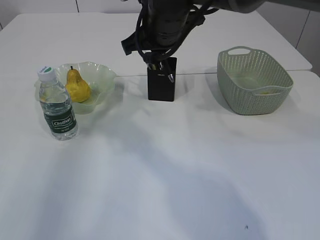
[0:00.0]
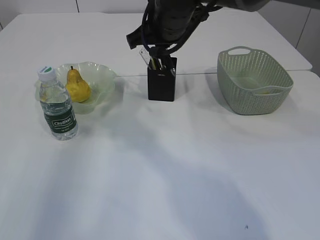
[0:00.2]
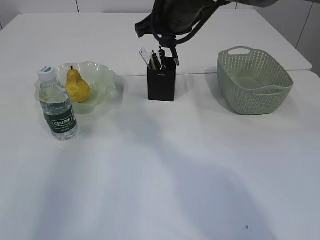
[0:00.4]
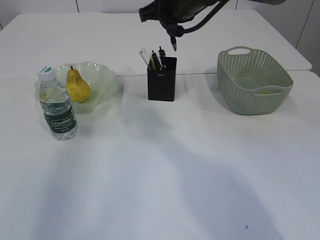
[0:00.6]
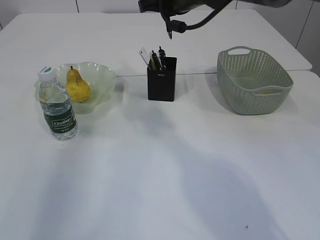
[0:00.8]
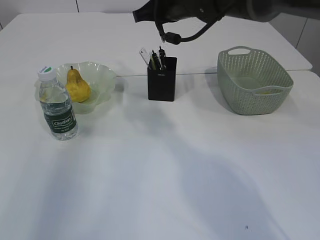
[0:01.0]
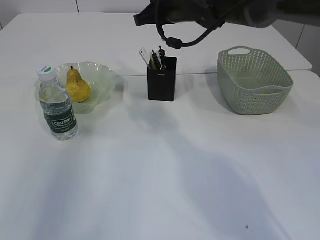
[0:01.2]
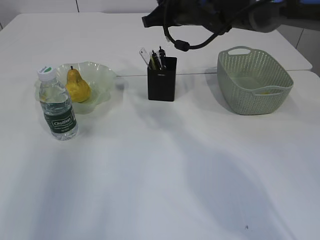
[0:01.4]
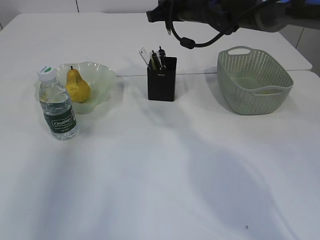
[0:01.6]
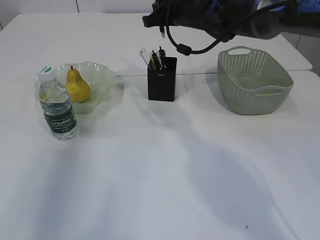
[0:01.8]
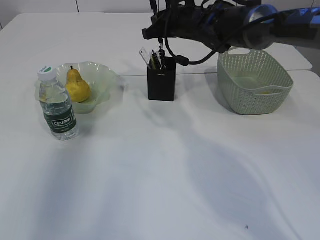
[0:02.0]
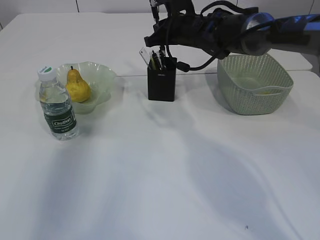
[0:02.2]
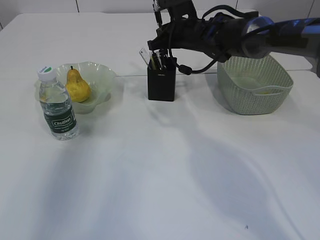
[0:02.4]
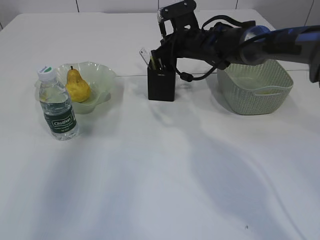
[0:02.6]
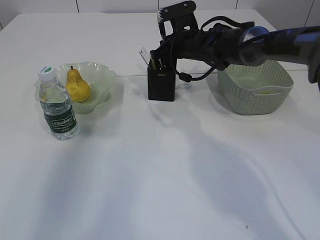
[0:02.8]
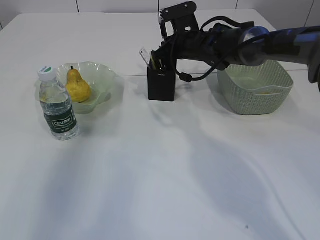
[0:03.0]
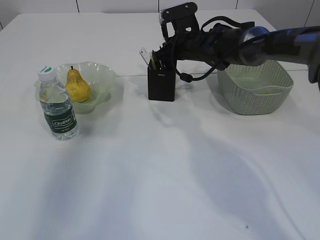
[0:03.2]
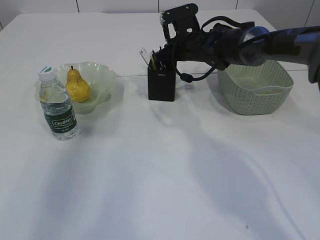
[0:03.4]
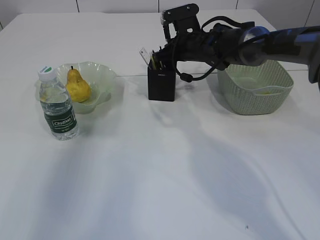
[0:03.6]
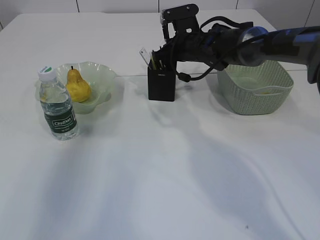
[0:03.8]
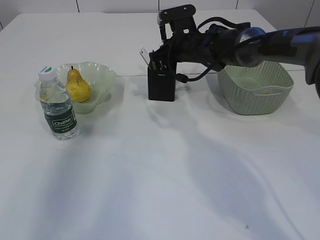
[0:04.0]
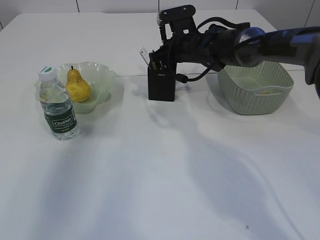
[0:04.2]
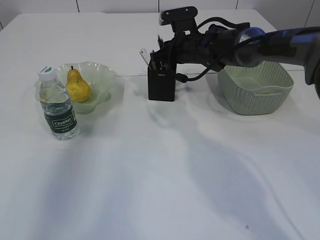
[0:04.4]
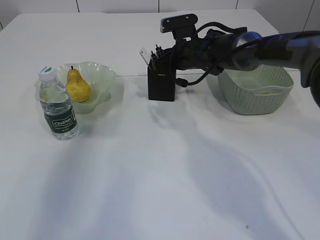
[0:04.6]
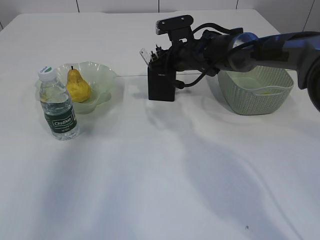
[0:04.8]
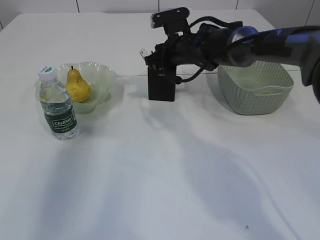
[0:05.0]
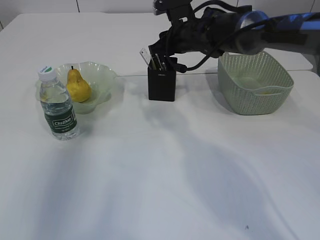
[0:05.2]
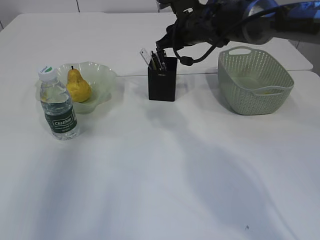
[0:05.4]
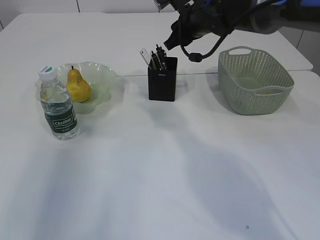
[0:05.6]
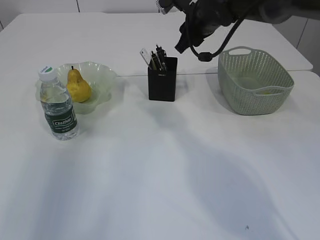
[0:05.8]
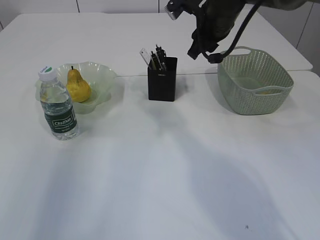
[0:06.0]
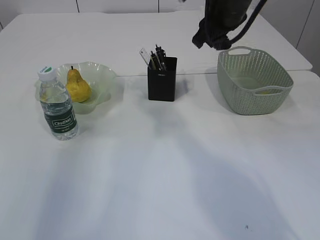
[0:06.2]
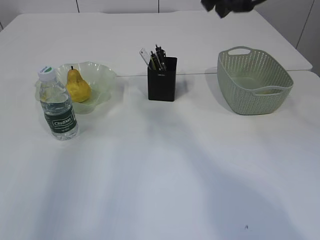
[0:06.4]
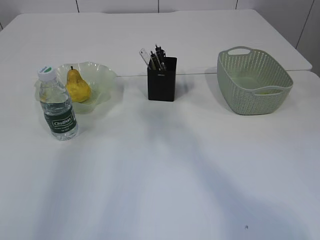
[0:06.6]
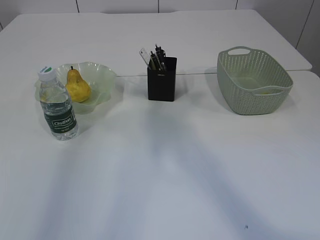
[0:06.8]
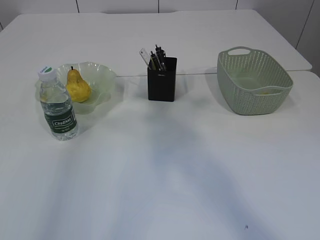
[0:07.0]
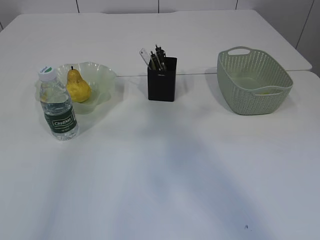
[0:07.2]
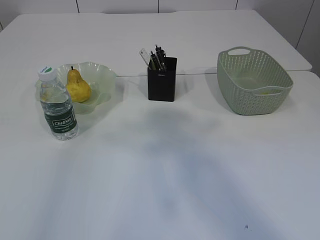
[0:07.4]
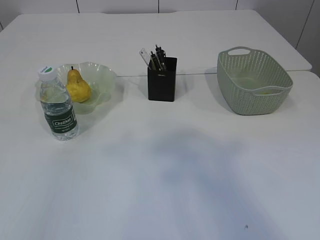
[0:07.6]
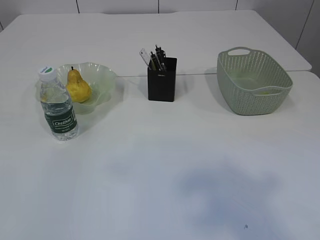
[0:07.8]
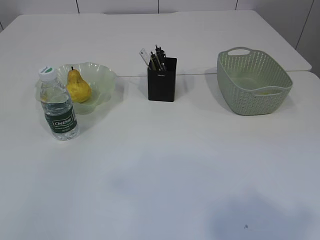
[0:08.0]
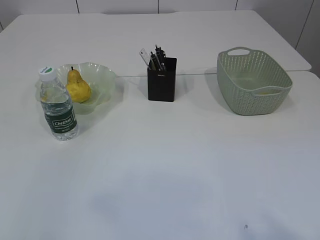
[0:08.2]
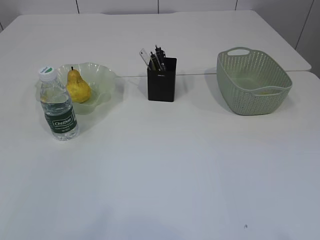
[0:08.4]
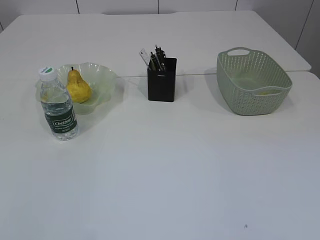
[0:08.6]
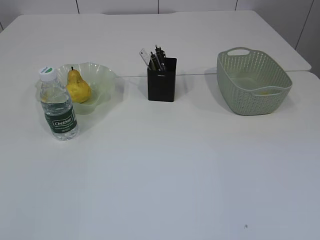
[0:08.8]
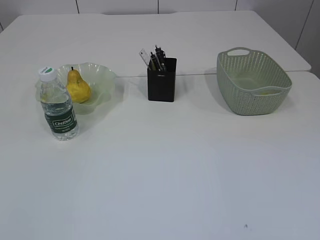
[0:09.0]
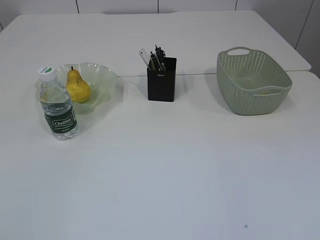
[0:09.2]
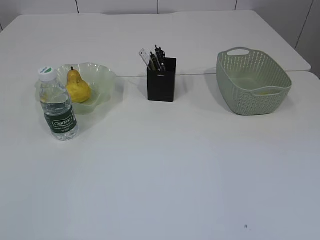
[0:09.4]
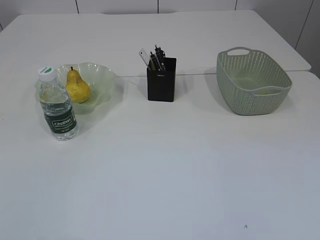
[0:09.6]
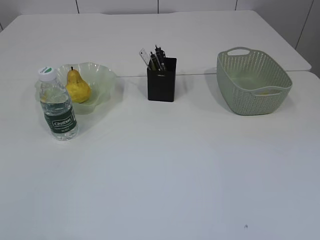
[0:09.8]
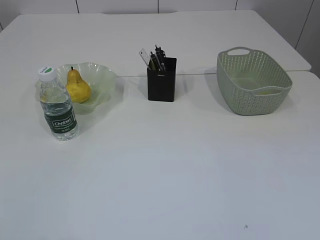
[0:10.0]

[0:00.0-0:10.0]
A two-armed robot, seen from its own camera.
Step, 0:00.0 to 0:05.8: Place the pen into the pen holder.
0:00.0 to 0:01.4: The right gripper is displaced forward and to the right by some 10 cm.
0:01.4 to 0:02.8: The right gripper shifts roughly 10 cm downward.
0:02.8 to 0:04.2: The grippers stay close to where they were, moving slightly.
0:04.2 to 0:05.8: The right gripper shifts roughly 10 cm upward, and opens.
0:05.8 to 0:07.2: The left gripper moves upward and backward, some 15 cm, and opens; the right gripper is displaced backward and upward by roughly 40 cm.
0:07.2 to 0:08.6: The left gripper shifts roughly 25 cm backward. Meanwhile the right gripper travels backward and downward by approximately 30 cm.

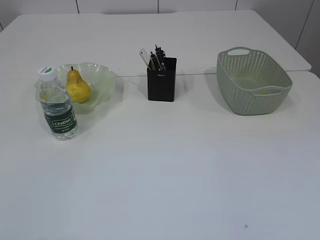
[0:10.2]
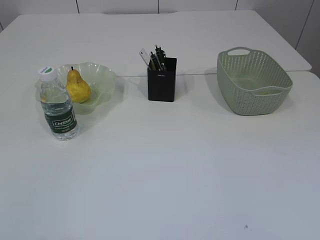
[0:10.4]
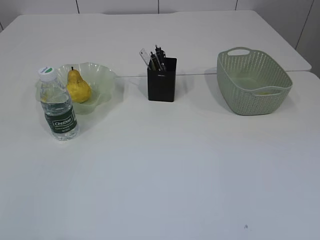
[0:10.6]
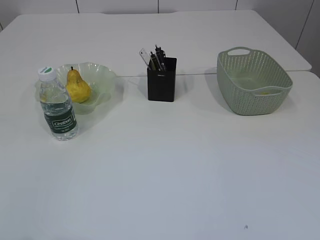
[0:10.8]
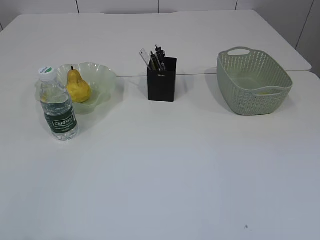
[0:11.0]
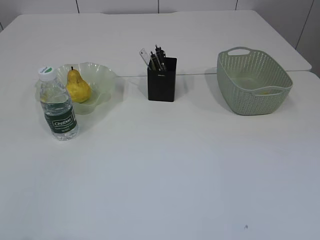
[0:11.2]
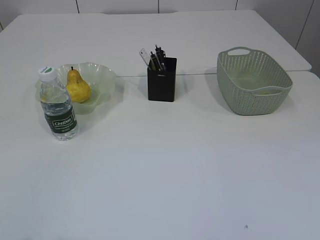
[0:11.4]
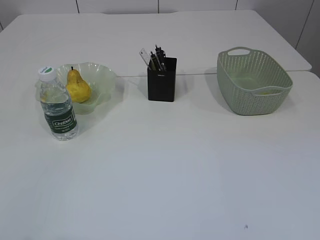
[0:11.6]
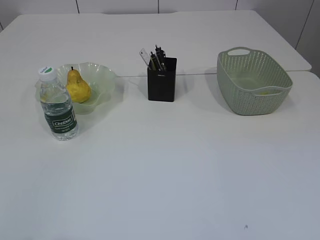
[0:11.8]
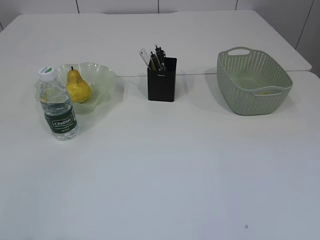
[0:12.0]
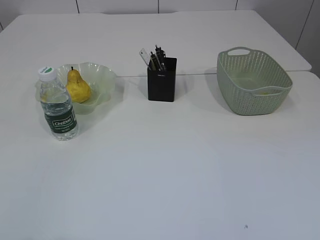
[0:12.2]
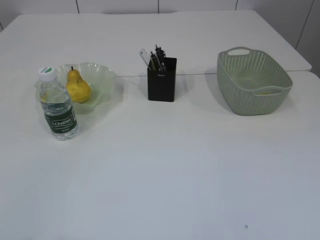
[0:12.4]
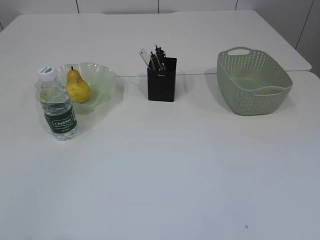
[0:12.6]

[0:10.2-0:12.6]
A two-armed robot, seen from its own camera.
0:11.4 to 0:12.6: The two grippers keep their place.

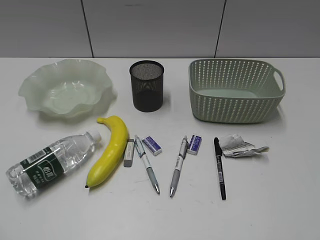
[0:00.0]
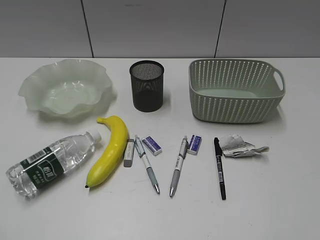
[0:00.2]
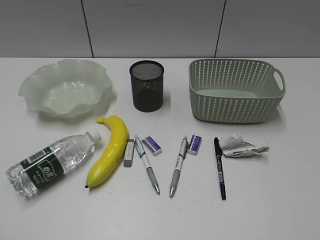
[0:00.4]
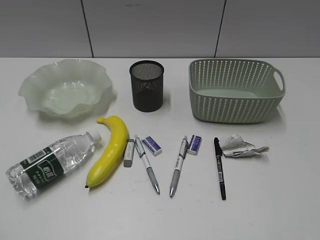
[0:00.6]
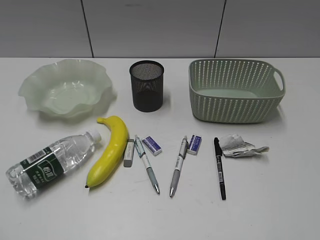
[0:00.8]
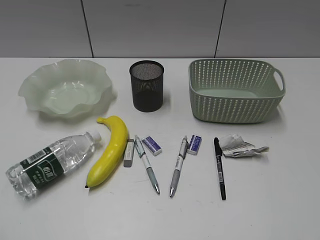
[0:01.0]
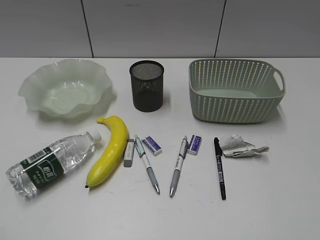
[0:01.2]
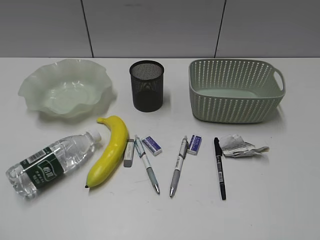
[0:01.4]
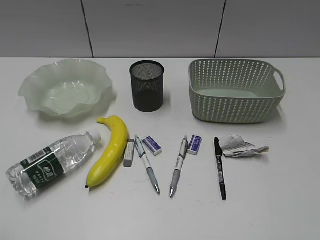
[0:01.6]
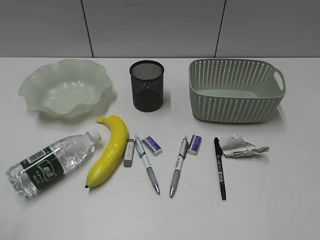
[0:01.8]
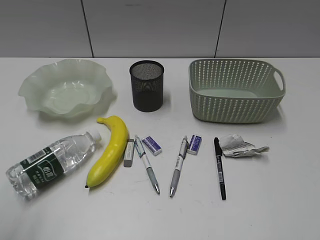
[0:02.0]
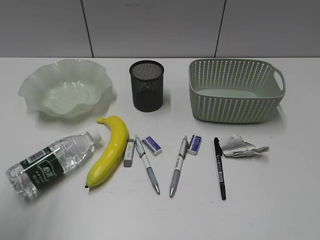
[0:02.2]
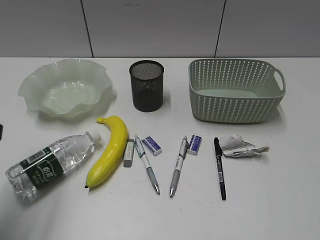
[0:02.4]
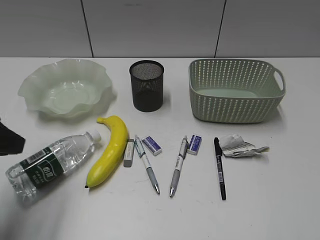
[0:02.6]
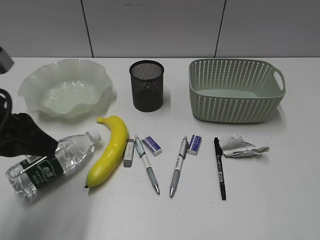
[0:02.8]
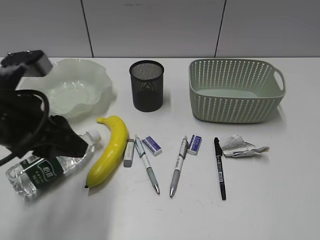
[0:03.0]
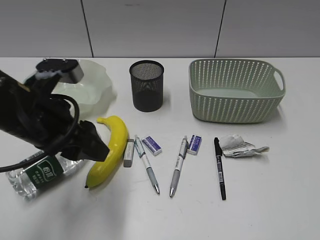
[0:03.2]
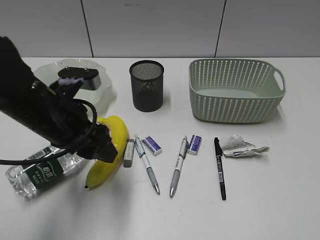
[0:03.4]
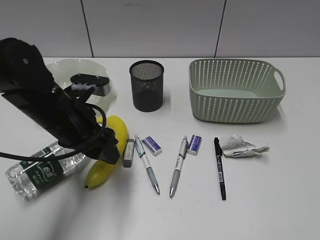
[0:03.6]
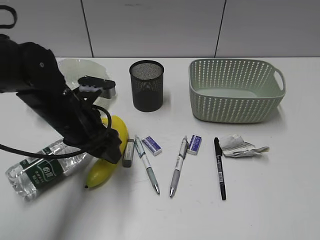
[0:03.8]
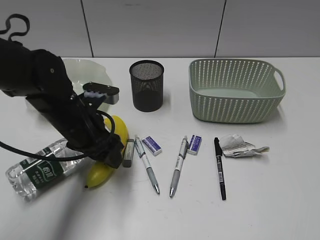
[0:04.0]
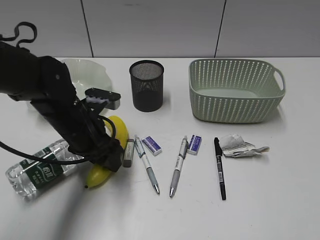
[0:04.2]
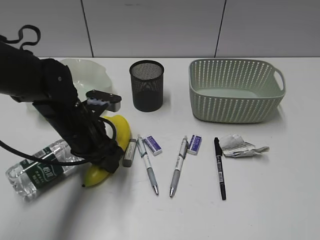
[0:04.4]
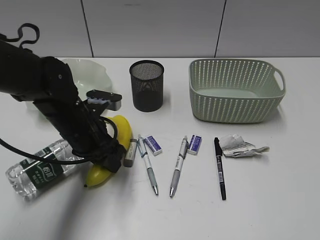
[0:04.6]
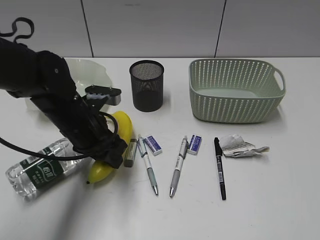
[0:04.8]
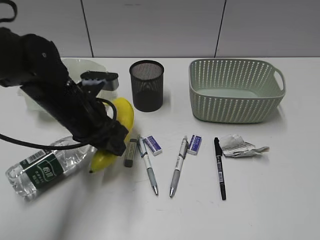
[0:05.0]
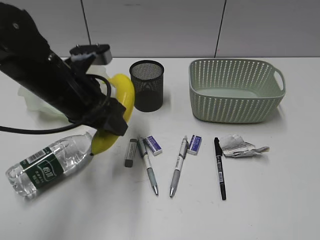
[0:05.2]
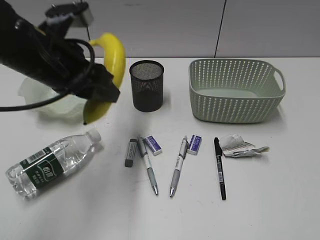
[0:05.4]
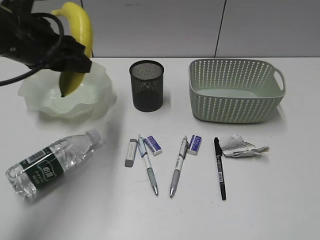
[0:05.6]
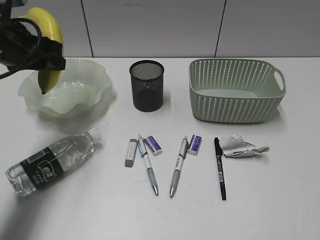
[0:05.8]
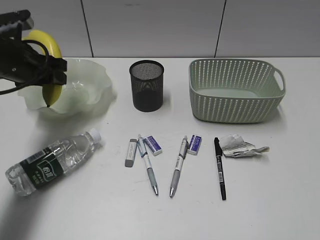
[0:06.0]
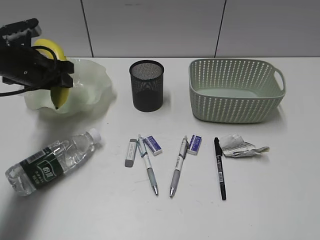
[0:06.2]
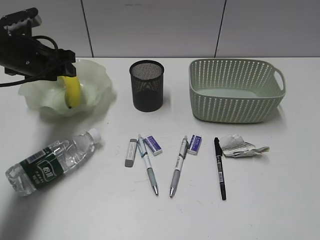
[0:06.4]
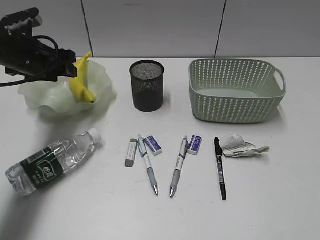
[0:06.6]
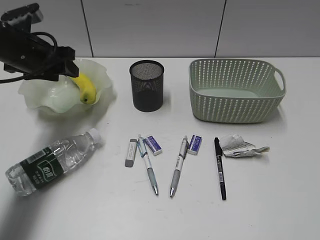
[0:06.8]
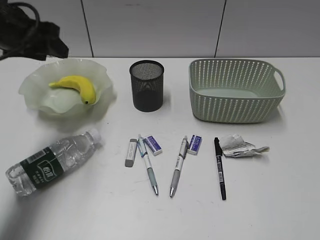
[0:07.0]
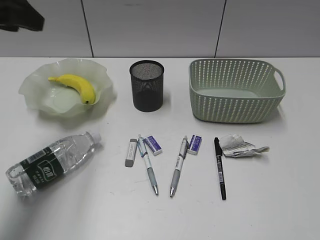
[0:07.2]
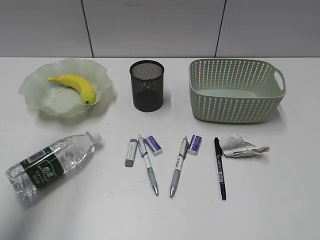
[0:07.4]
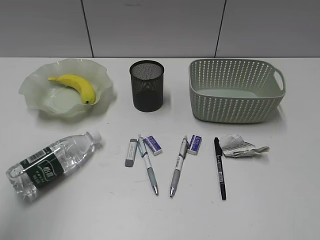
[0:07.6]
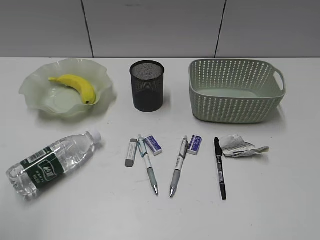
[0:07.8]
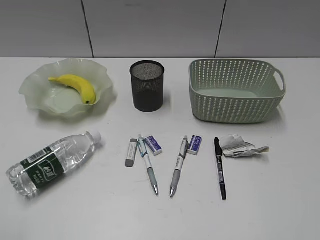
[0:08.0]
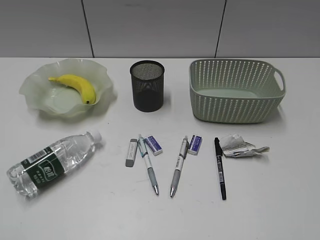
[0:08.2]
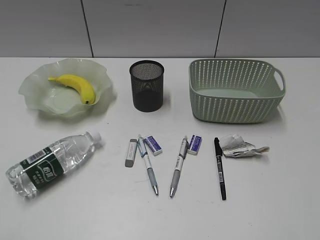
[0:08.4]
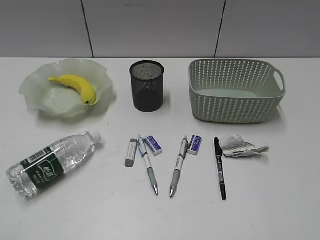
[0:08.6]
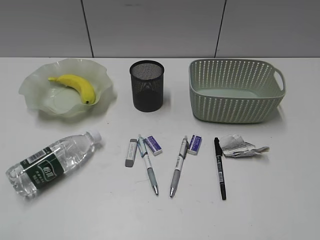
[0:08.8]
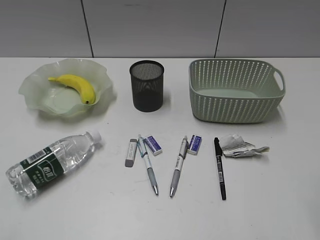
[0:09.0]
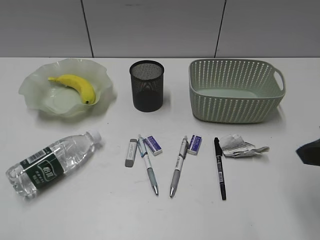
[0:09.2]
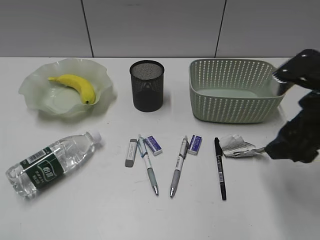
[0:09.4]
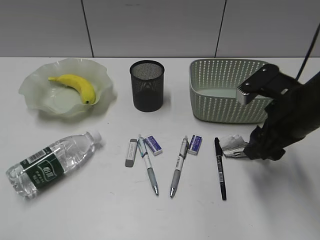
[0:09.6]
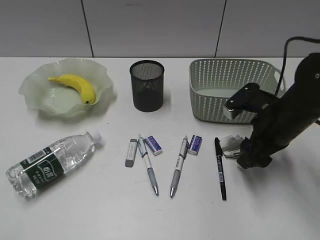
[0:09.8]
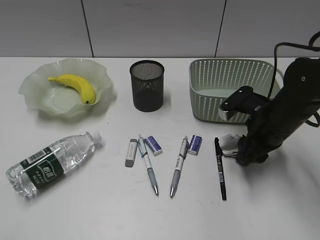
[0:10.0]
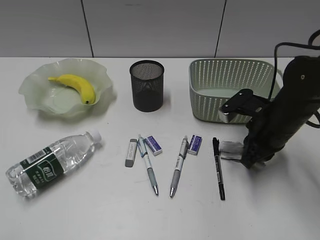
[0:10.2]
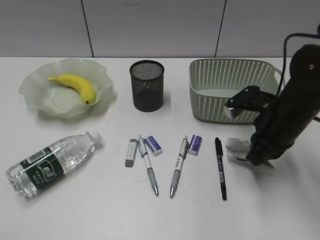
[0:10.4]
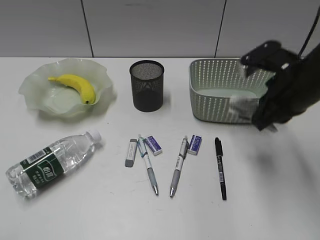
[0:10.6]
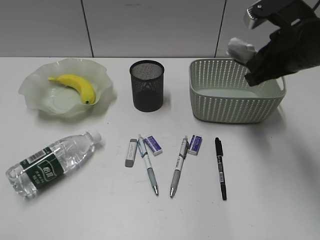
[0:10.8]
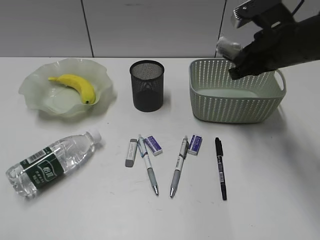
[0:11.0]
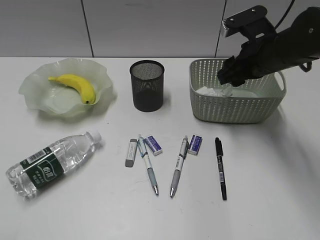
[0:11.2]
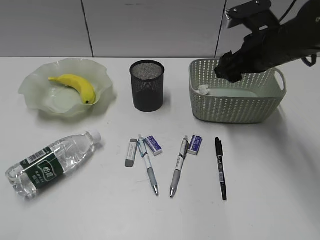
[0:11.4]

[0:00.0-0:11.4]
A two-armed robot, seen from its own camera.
Step, 0:01.6 to 0:04.4: Grasp the banana with left gripper.
Step, 0:04.6 to 0:06.6: Place the banana in the plate with left gripper.
Step, 0:06.8 to 0:10.2: Grasp the waste paper with right gripper.
Step, 0:10.4 to 0:11.2: Place the waste paper in the basket with right gripper.
0:01.4 to 0:02.8: The left gripper goes about 20 cm forward.
0:02.8 to 0:04.2: The left gripper moves downward, to the right and forward, about 20 cm, and opens up.
0:04.2 to 0:05.6: The left gripper travels upward by some 15 cm.
0:05.6 to 0:07.2: The left gripper travels upward and to the left by roughly 10 cm.
0:07.2 to 0:08.6: The left gripper travels backward by roughly 30 cm.
0:08.6 to 0:10.0: The right gripper is displaced forward and downward by about 35 cm.
0:10.0 to 0:11.4: The right gripper heads upward and forward, covering roughly 10 cm, and closes, then opens again.
